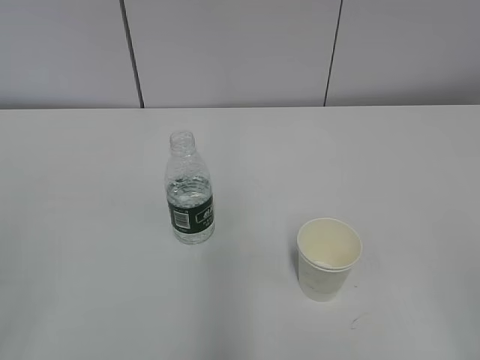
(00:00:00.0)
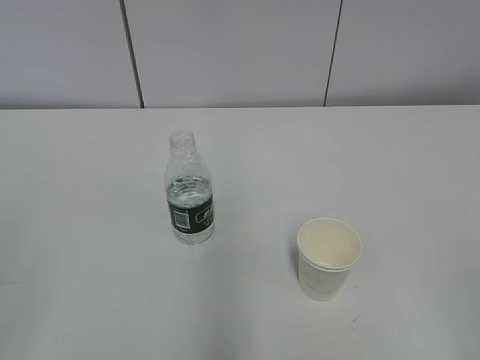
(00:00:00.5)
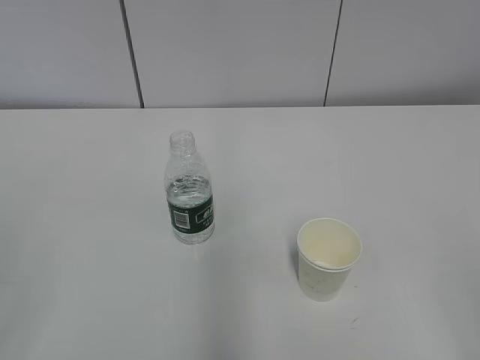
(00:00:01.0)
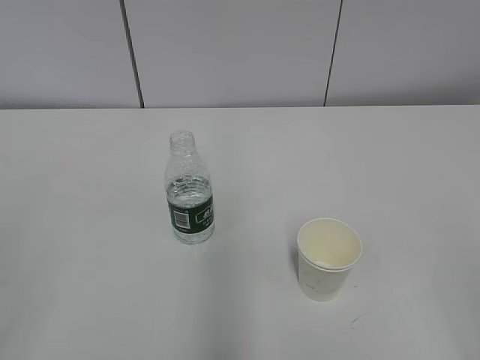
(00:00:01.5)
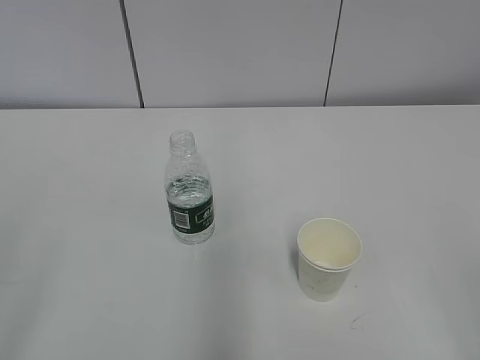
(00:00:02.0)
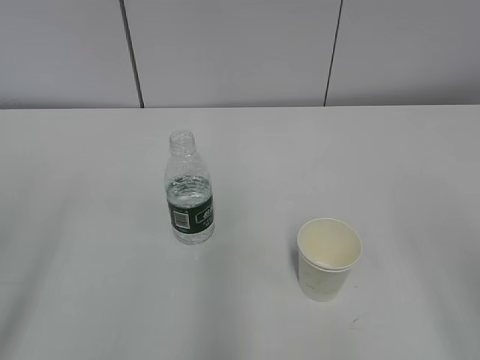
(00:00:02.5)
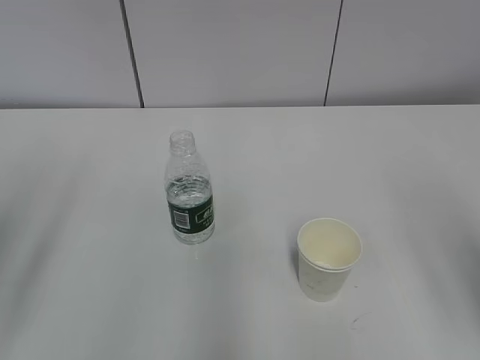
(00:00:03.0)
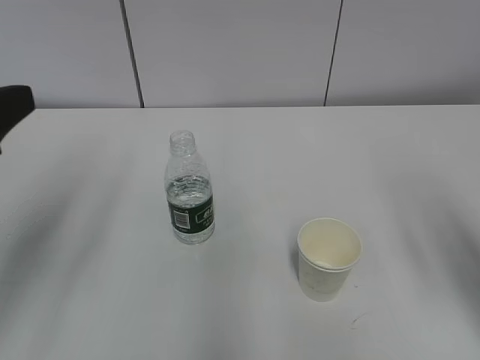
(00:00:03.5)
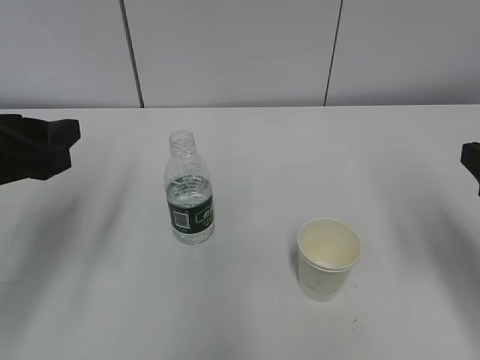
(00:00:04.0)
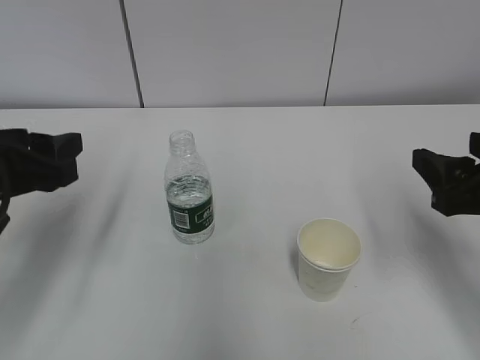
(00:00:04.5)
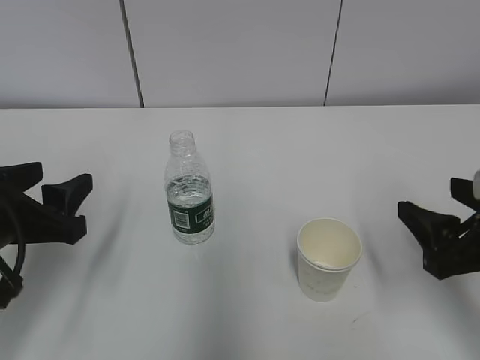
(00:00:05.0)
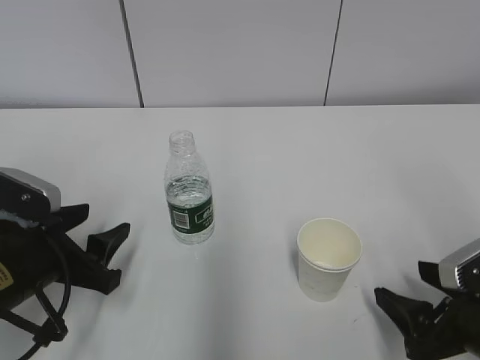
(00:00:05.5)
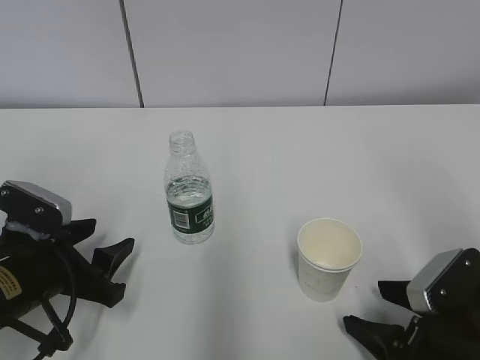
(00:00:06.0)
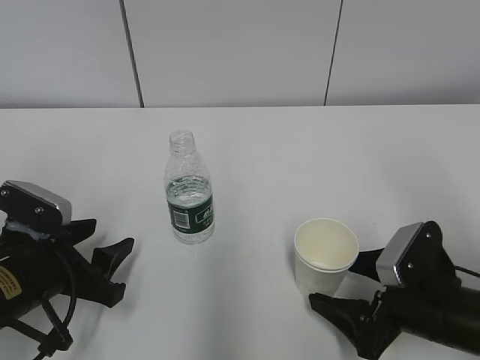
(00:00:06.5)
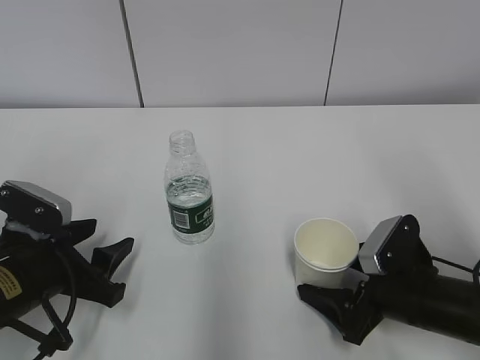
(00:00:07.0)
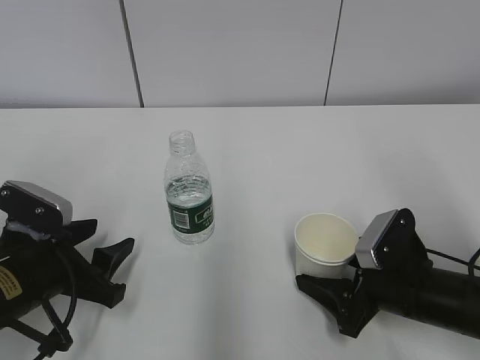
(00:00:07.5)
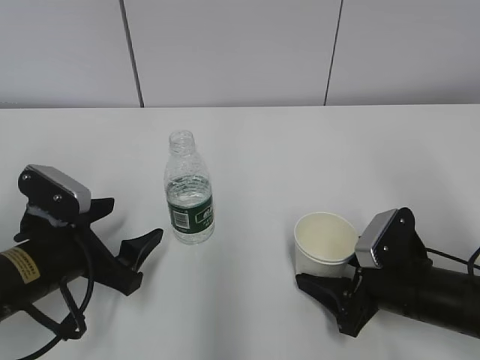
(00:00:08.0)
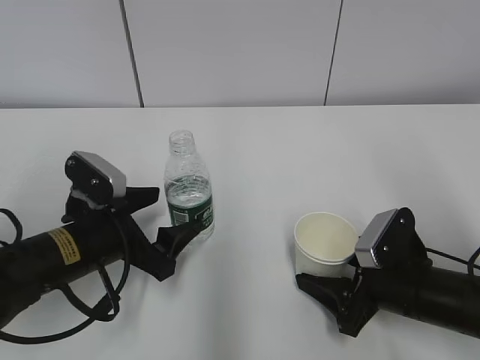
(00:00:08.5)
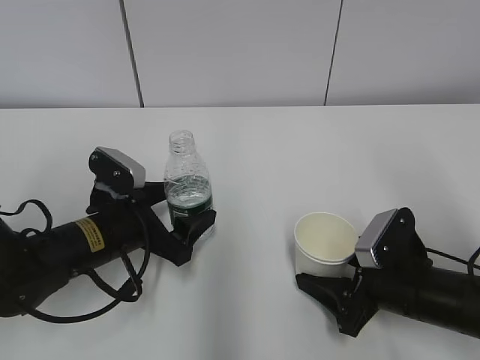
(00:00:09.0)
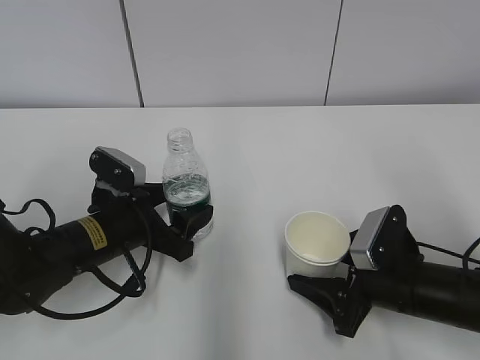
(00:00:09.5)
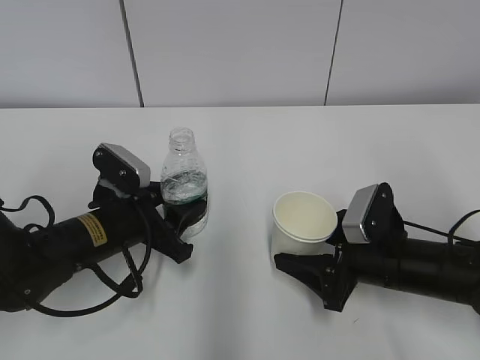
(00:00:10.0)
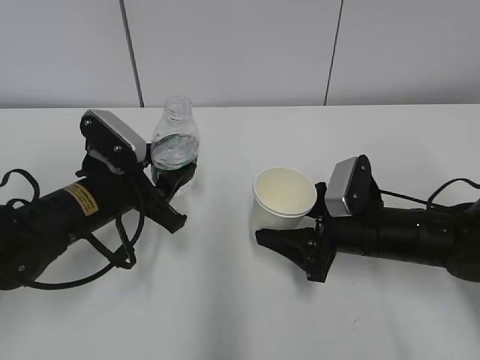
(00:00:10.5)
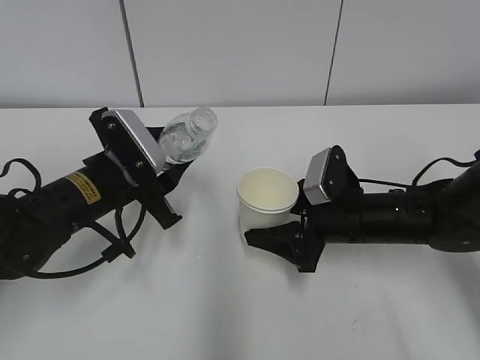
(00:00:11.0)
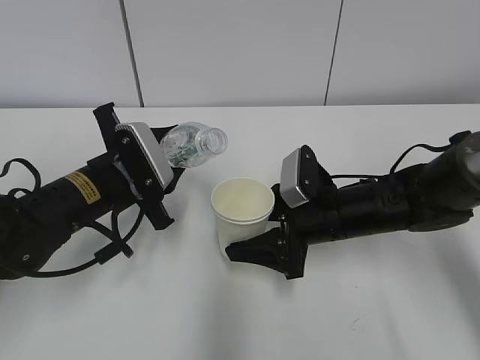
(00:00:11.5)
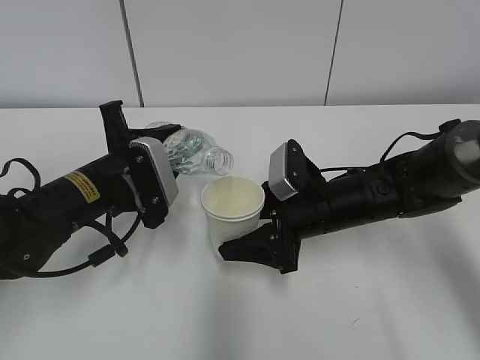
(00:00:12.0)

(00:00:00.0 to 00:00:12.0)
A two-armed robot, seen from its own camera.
Step, 00:00:00.0 - 00:00:06.5: Grab the paper cup with the right hand.
Step, 00:00:07.0 - 00:00:08.0: Grab the water bottle with the left hand.
Step, 00:00:08.5 - 00:00:10.0: Lift the paper cup with the right hand.
00:00:02.0 - 00:00:04.0: The two grippers go roughly 20 cm forward.
00:00:04.0 - 00:00:06.0: The grippers both shift downward by some 15 cm.
00:00:06.0 - 00:00:08.0: The left gripper opens up; the right gripper heads forward, covering some 5 cm, and closes.
00:00:08.0 - 00:00:10.0: The left gripper heads forward, covering approximately 5 cm, and closes.
00:00:10.0 - 00:00:12.0: The left gripper travels upward by about 5 cm. Meanwhile the right gripper heads to the left and forward, covering approximately 10 cm.

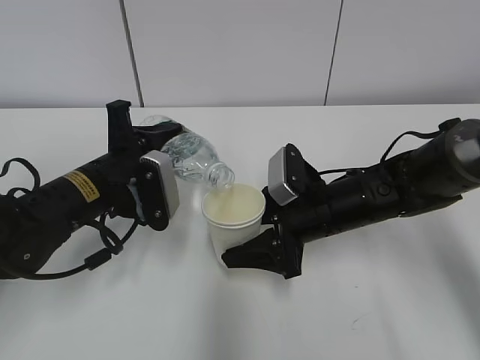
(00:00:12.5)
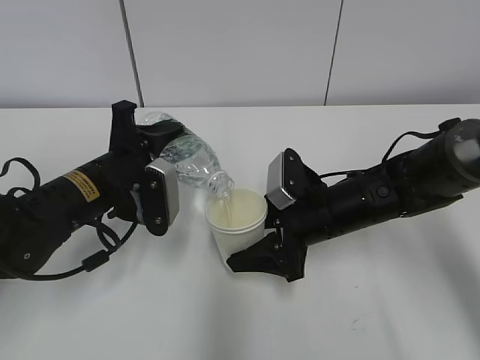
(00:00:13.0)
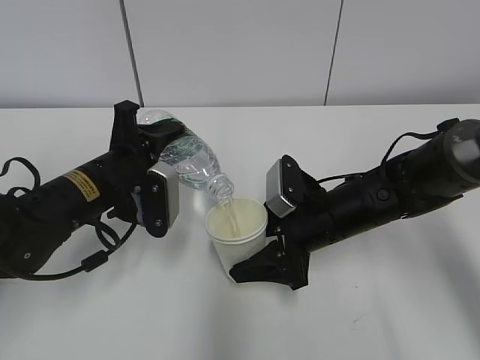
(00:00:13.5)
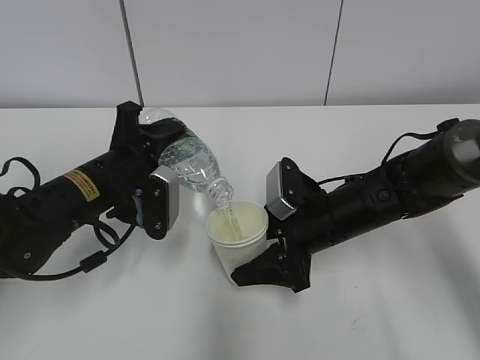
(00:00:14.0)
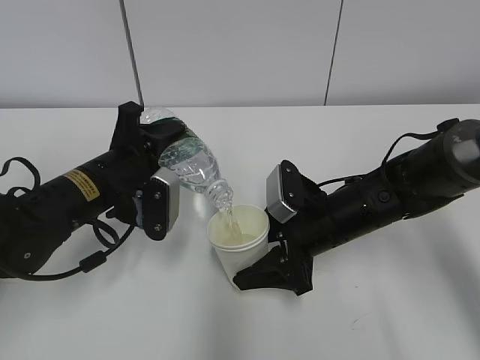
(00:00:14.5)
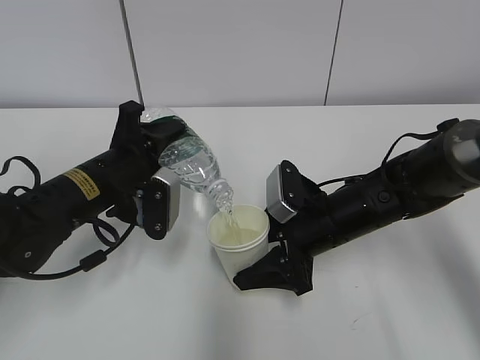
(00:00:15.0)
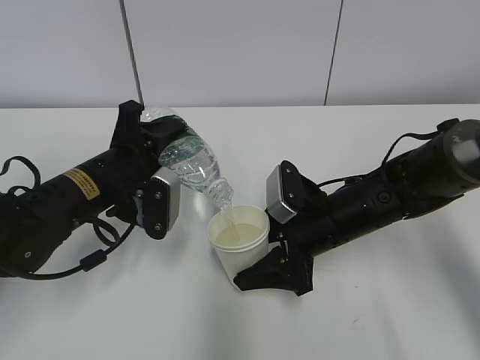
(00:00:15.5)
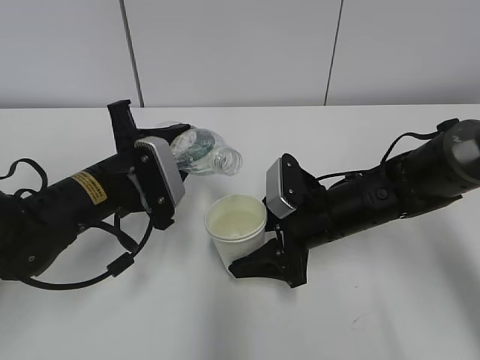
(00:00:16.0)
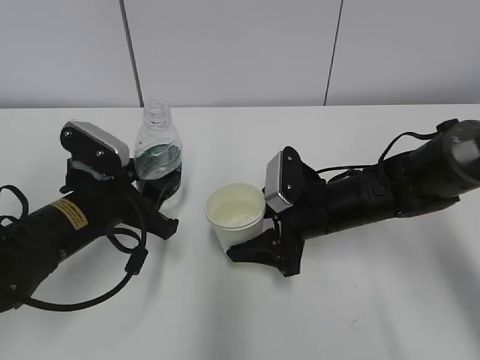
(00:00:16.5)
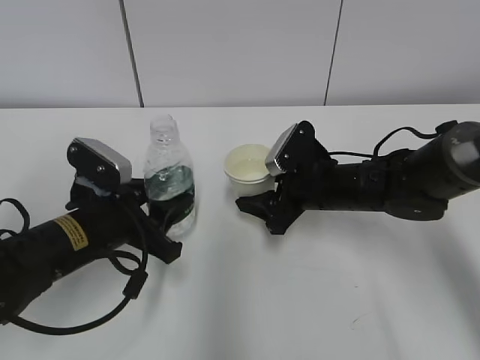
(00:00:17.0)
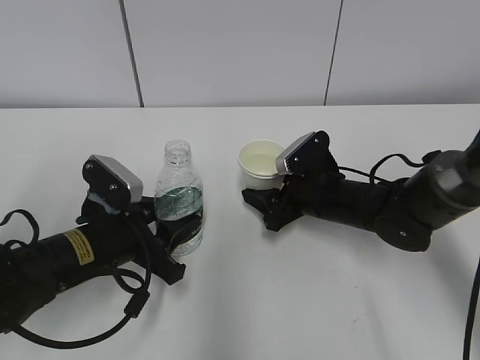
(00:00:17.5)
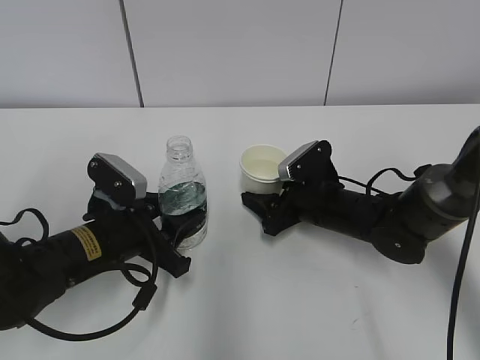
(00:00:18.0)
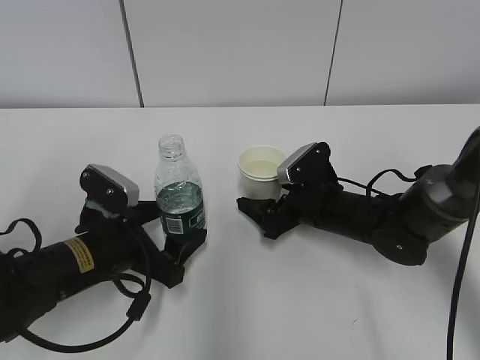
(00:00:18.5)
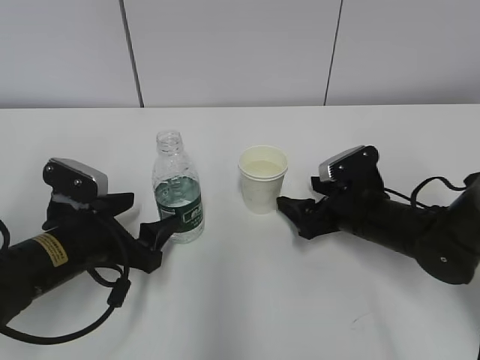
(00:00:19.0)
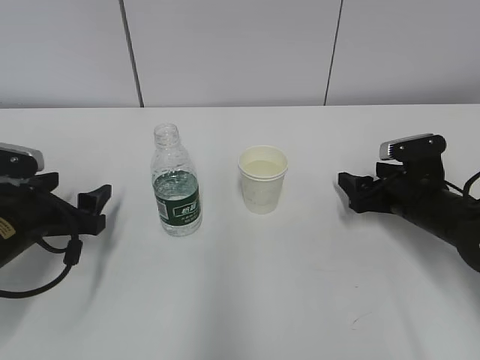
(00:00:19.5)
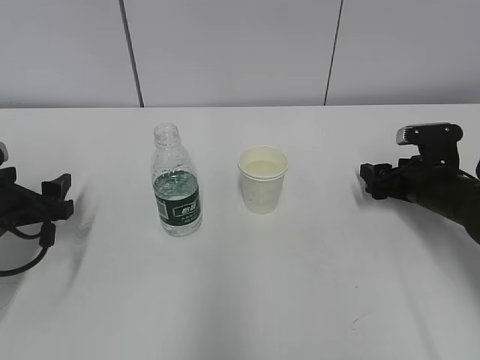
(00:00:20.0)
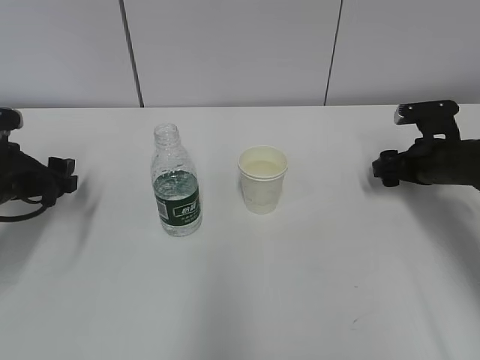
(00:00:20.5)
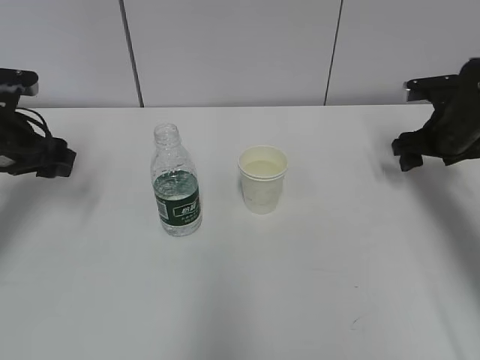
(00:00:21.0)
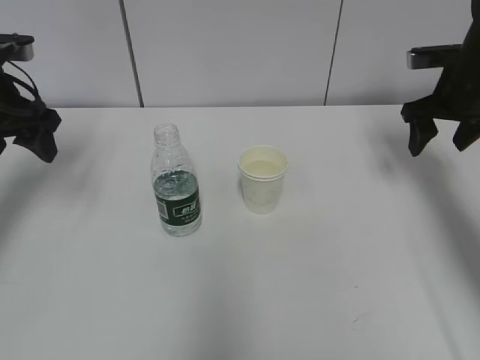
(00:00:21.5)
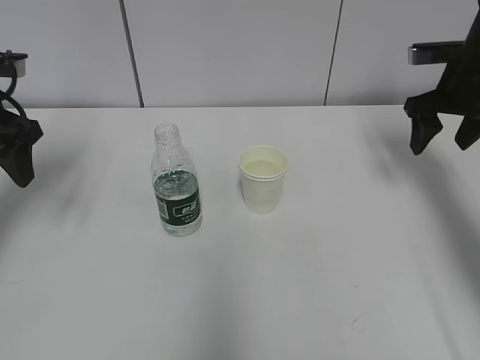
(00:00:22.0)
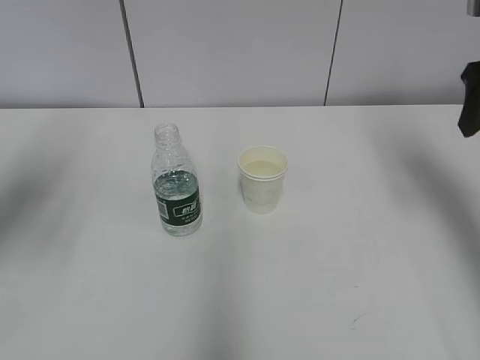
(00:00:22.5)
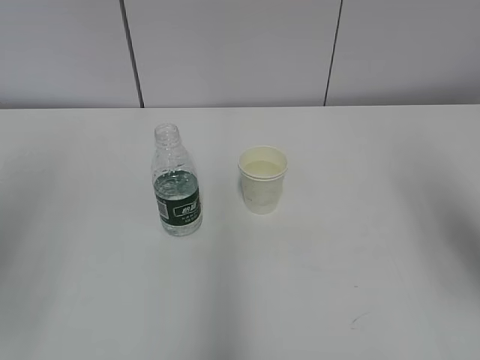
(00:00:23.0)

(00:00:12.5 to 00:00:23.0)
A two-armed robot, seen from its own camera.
Step, 00:00:14.0 - 00:00:15.0: Place the water bottle with the left hand.
00:00:12.5 - 00:00:14.5: There are only small adjustments of the grippers.
00:00:16.5 - 00:00:19.0: The right gripper moves to the right, about 5 cm, and opens its fingers, while the left gripper opens.
00:00:19.0 - 00:00:21.0: The left gripper is displaced to the left, forward and upward by some 20 cm; the right gripper shifts some 20 cm to the right, upward and forward, and closes up.
00:00:21.0 - 00:00:23.0: The grippers both shift backward and upward by about 30 cm.

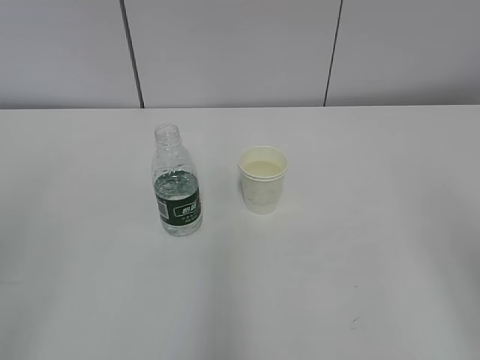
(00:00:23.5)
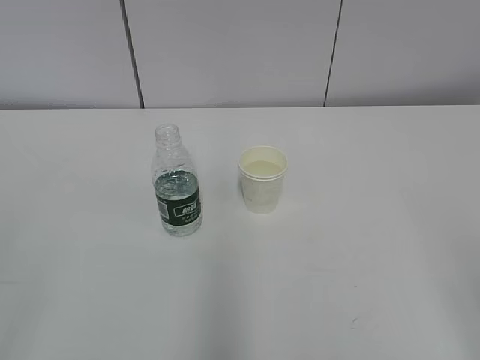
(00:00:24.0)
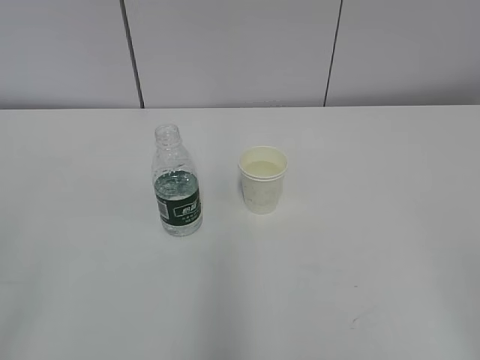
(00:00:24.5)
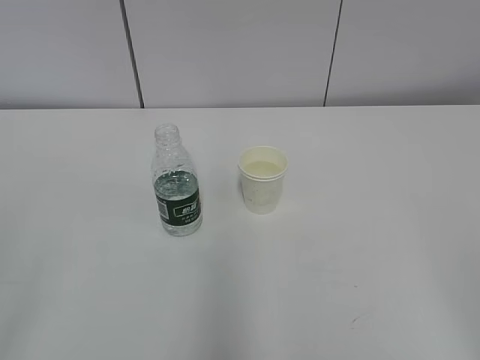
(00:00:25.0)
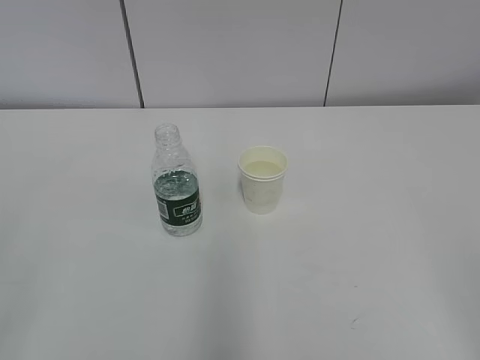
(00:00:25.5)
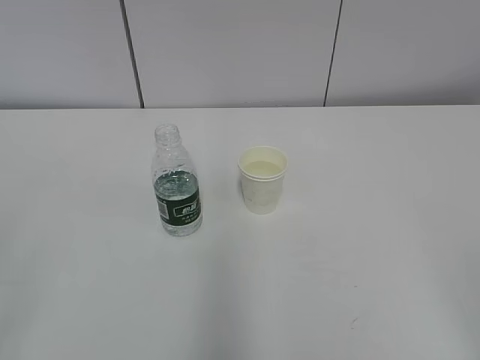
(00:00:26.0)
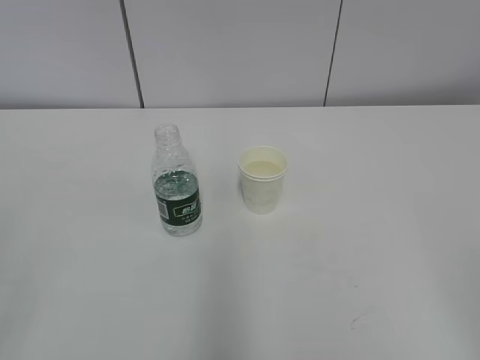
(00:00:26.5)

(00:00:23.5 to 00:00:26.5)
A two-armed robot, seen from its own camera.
00:00:25.0 - 00:00:26.5: The two grippers keep their place.
